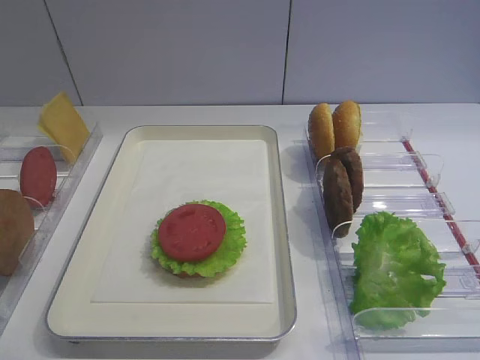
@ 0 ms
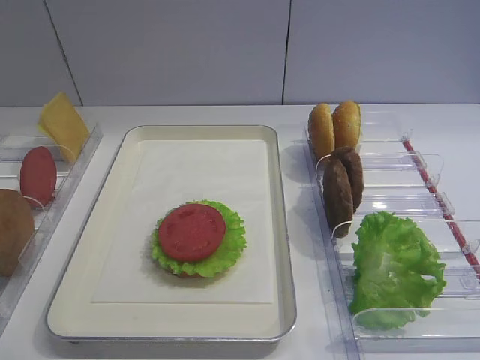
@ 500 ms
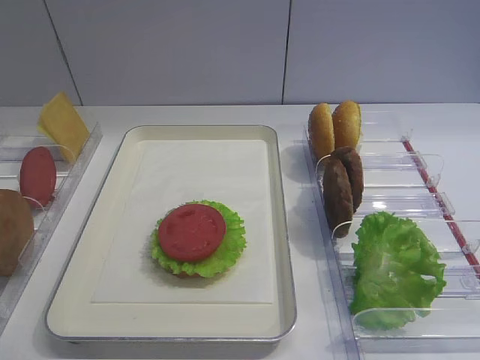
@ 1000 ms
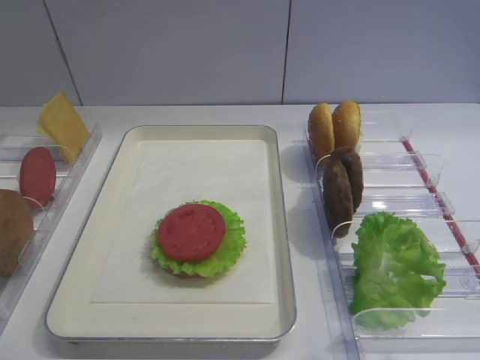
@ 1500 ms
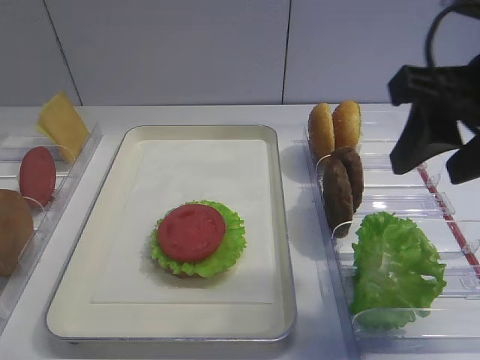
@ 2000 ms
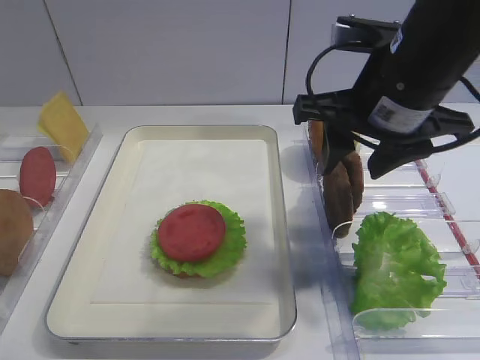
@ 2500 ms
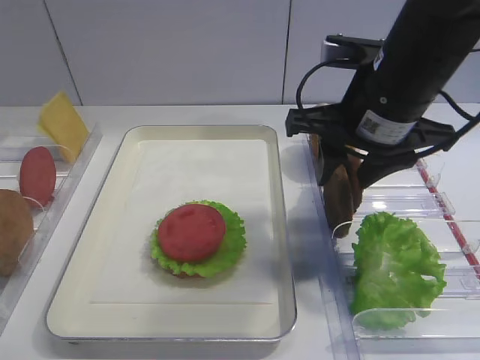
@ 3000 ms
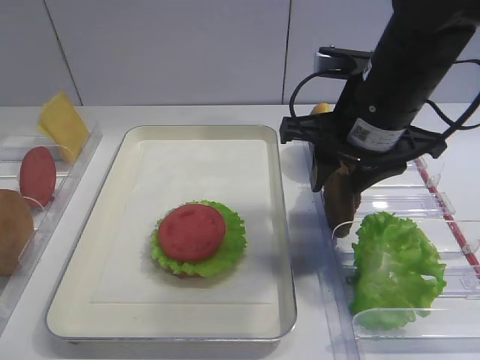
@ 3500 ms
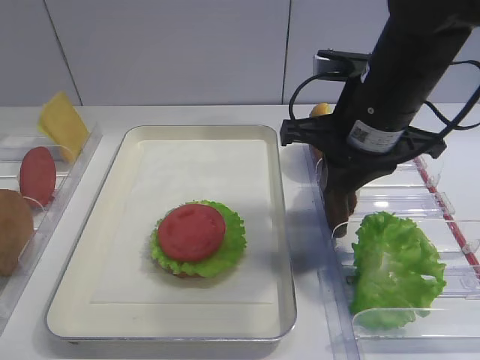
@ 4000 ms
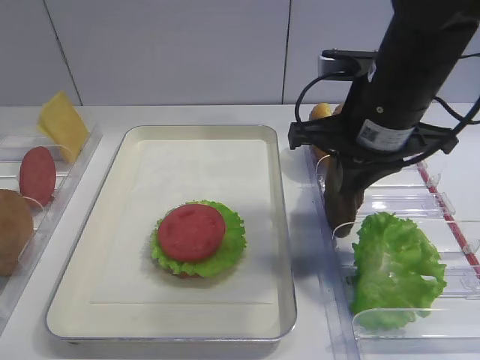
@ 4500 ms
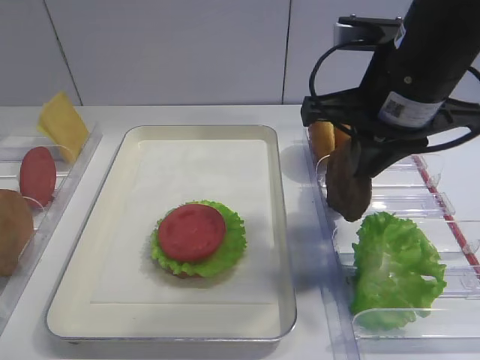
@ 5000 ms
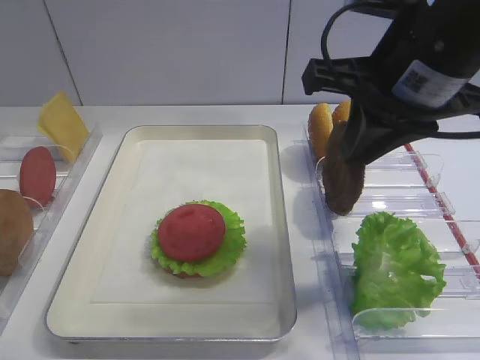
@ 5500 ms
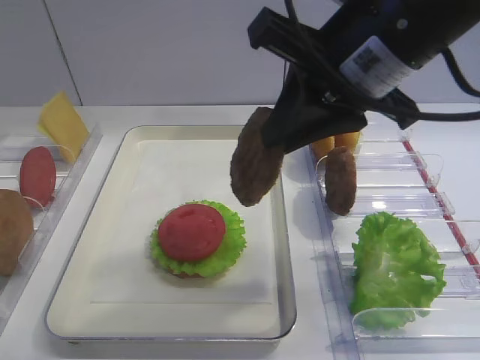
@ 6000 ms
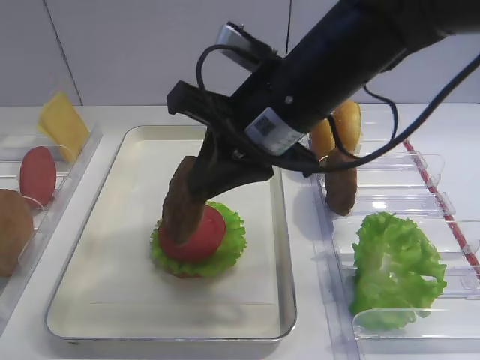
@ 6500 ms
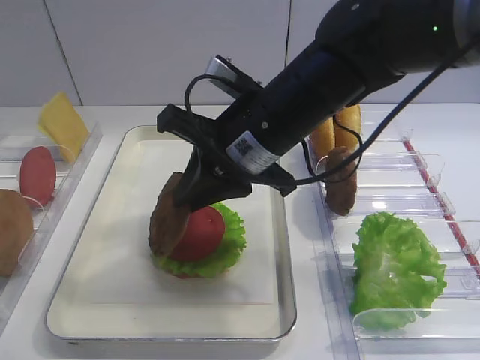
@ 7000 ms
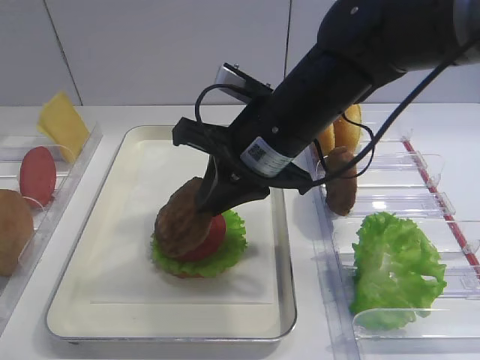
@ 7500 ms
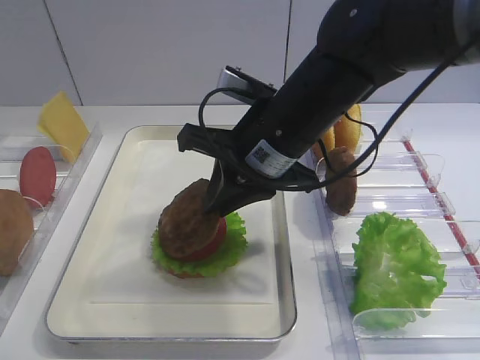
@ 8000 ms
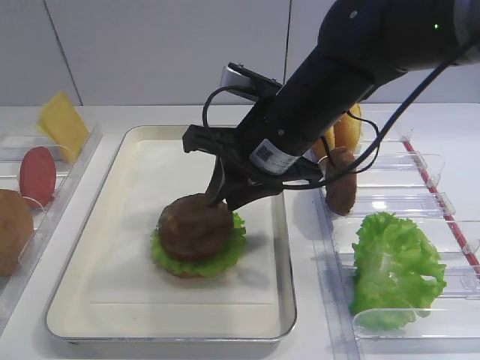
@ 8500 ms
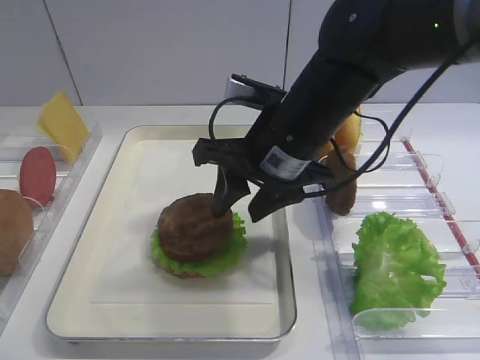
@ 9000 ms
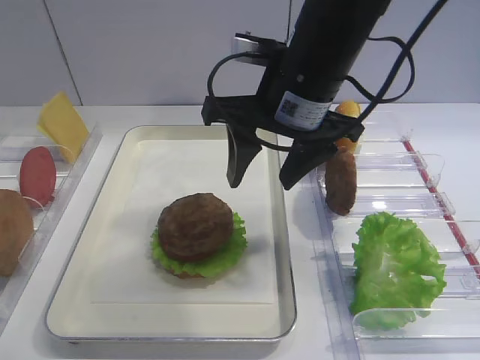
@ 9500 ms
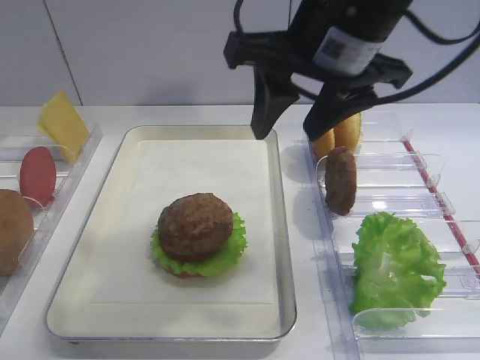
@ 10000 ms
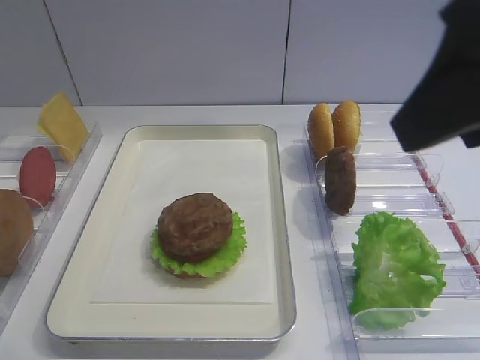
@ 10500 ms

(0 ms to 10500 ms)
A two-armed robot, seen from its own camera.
Step, 0 ms - 5500 ms: Pick up the cutlet with the right gripper.
Step, 6000 ms - 9500 ms: Place the cutlet on the tomato slice with the right gripper.
2000 ms - 4000 ms: The right gripper travels forward, downward and to the left by roughly 15 cm, and closes up.
4000 ms - 6500 ms: The right gripper moves to the left, roughly 10 cm.
6500 ms - 8500 ms: The right gripper moves approximately 5 cm.
8500 ms - 10500 ms: The right gripper moves upward, backward and to the right, about 25 cm, and opens up.

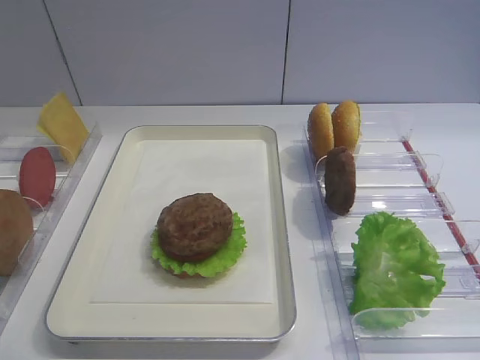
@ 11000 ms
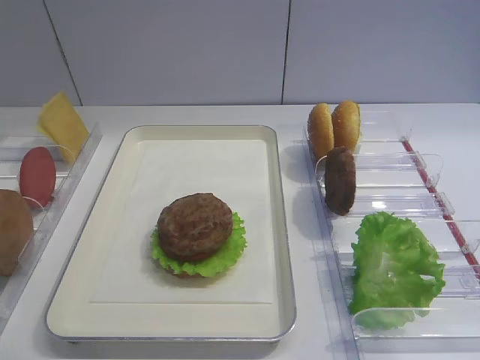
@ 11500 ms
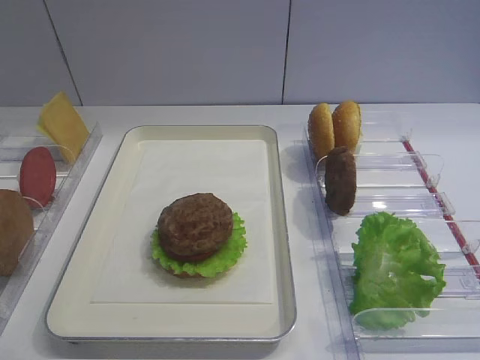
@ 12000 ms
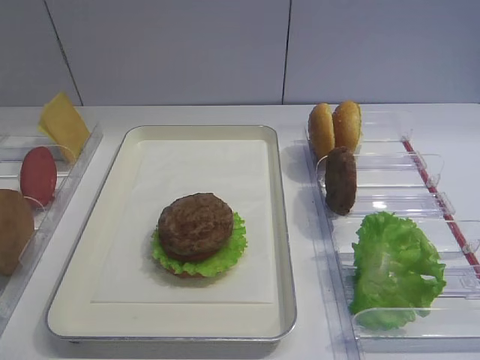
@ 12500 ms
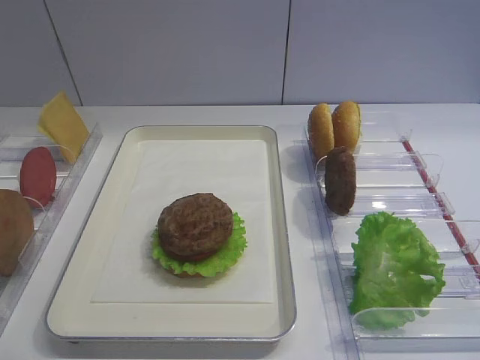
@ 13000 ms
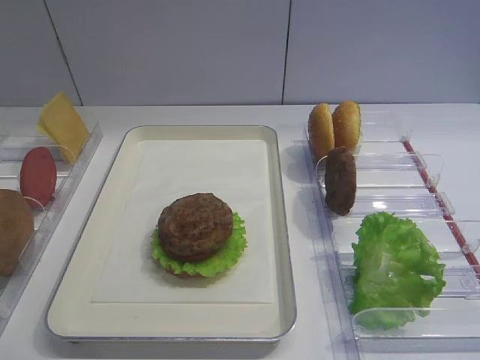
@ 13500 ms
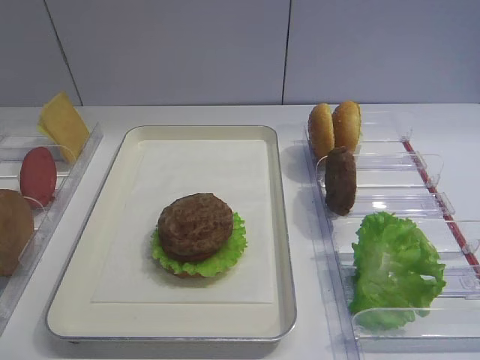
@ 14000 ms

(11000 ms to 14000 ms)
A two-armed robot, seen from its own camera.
11000 ms - 12500 ms: The right gripper goes about 15 cm downward and backward.

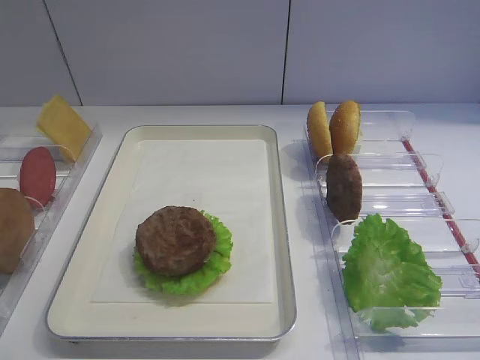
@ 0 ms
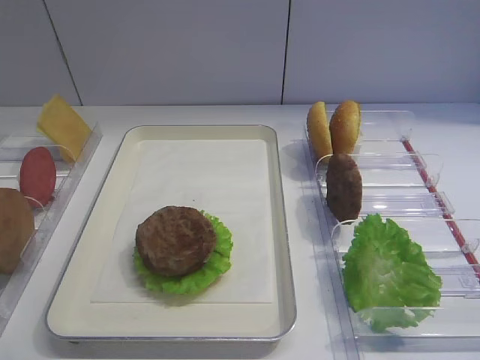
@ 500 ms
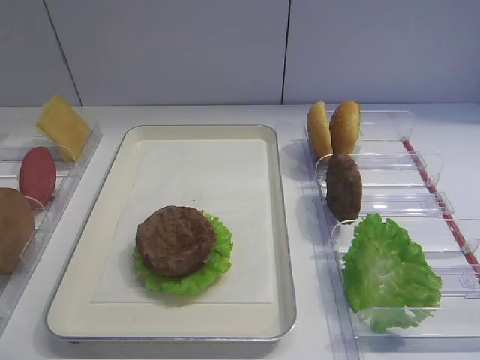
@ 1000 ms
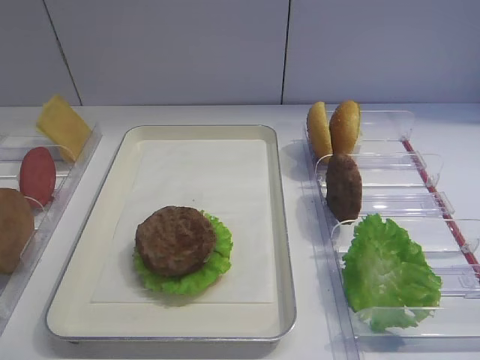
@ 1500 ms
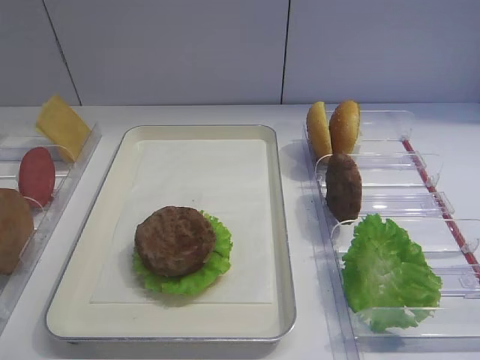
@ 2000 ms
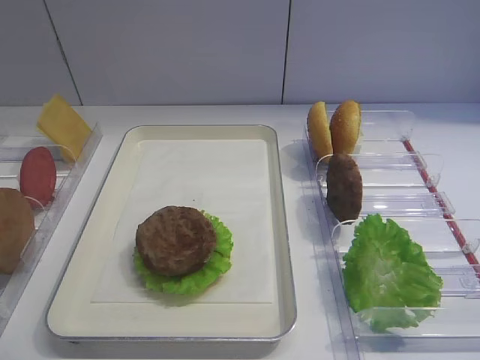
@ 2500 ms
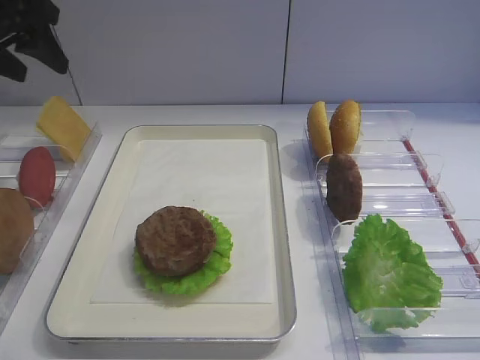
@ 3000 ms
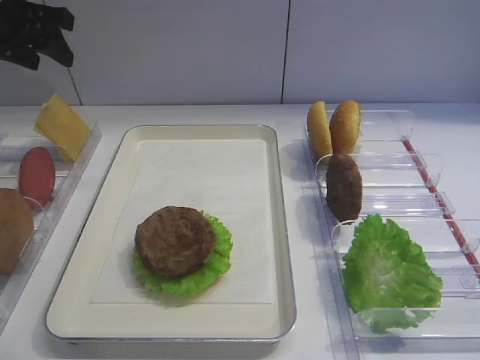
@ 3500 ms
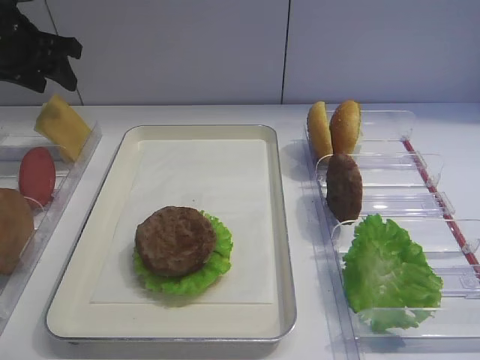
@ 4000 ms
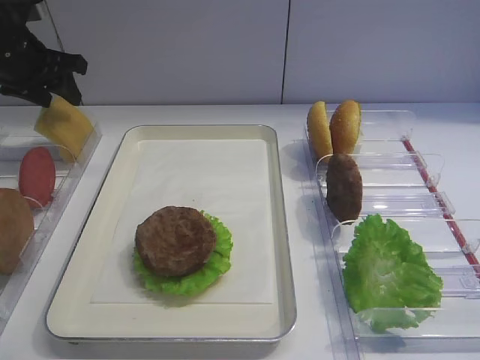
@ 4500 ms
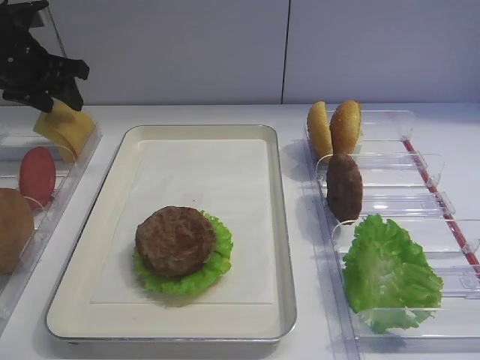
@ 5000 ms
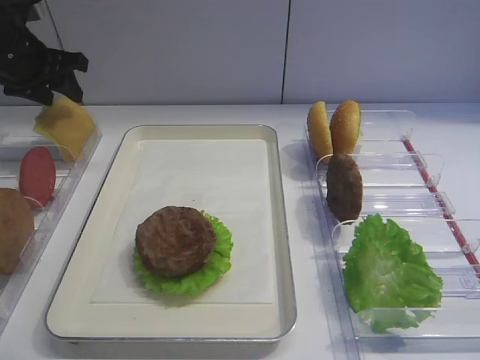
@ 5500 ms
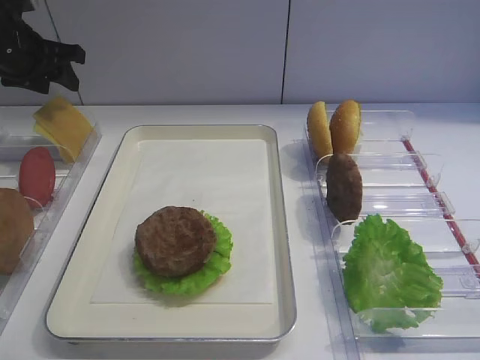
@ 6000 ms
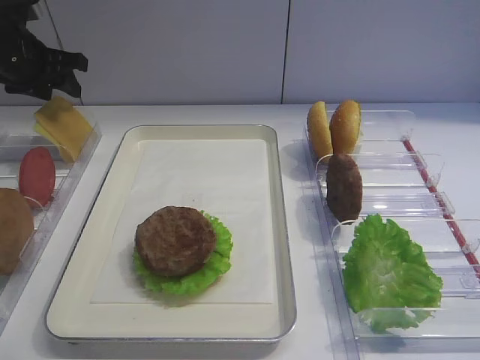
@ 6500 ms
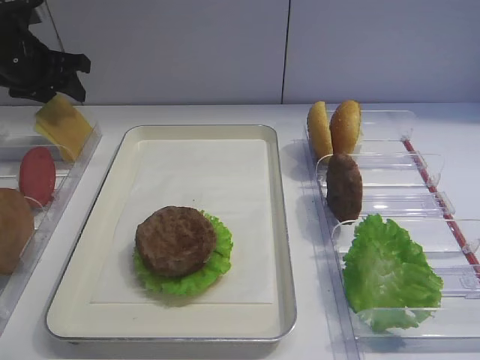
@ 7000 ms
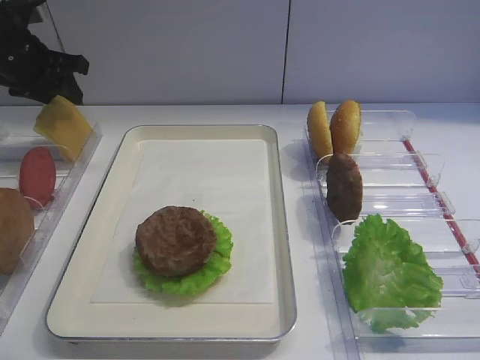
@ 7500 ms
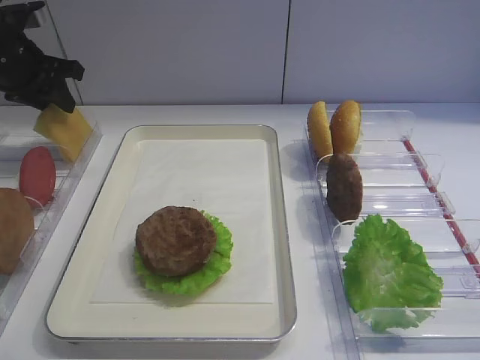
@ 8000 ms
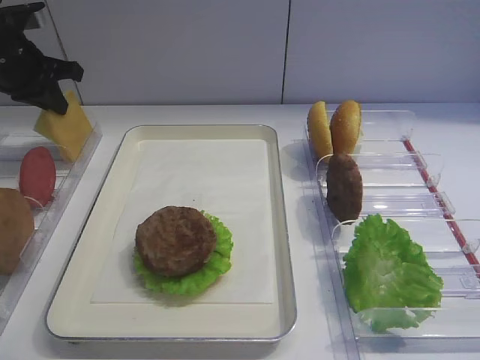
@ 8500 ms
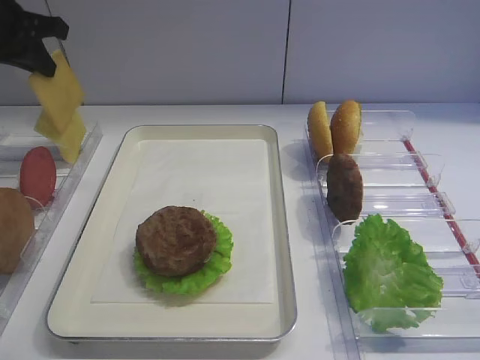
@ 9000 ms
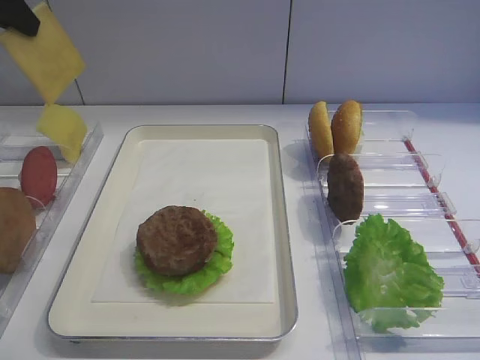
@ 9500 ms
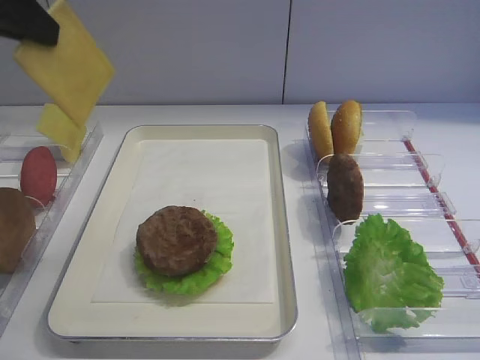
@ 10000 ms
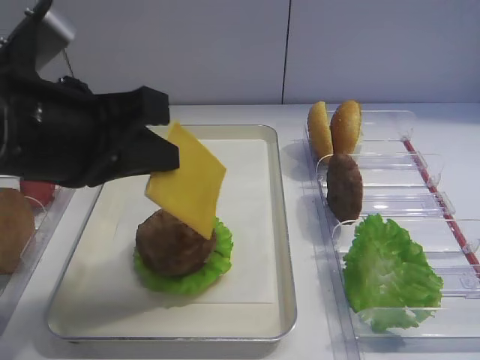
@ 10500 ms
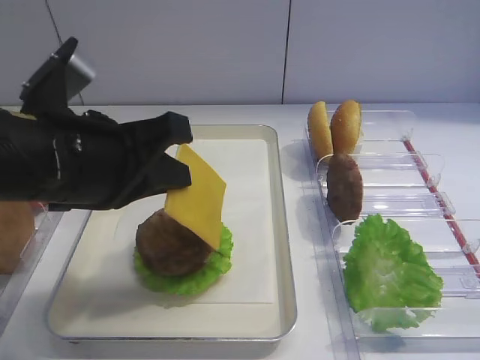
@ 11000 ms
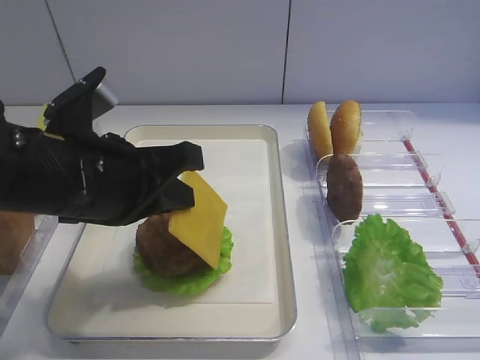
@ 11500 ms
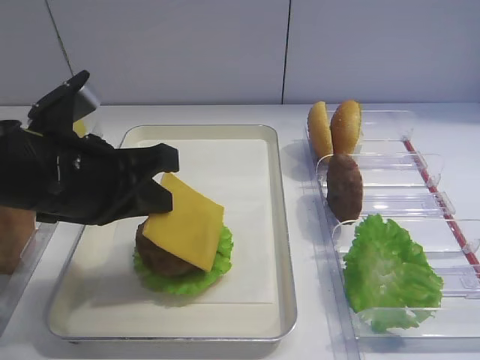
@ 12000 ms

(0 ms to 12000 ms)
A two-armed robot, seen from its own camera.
Step, 0 ms - 8500 ms: Pick up the cheese slice with the left gripper.
2000 ms - 4000 ms: The left gripper heads forward, covering some 40 cm.
4000 ms - 8000 ms: The grippers stay close to where they were, moving slightly.
8000 ms - 10000 ms: The left gripper shifts roughly 25 cm backward and upward, and closes up.
10000 ms - 12000 ms: The left gripper travels downward and to the right by approximately 20 cm.
